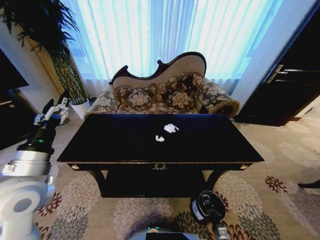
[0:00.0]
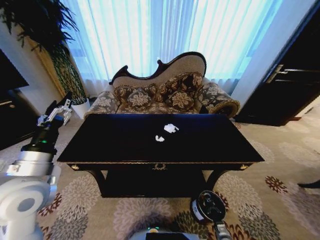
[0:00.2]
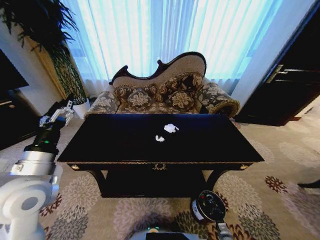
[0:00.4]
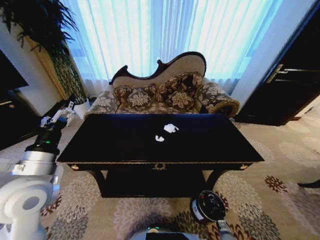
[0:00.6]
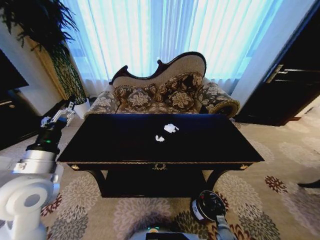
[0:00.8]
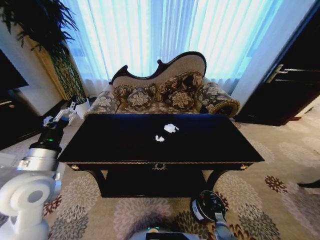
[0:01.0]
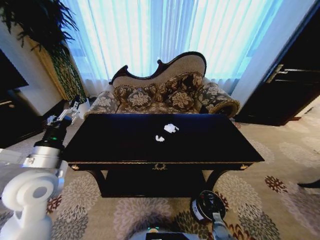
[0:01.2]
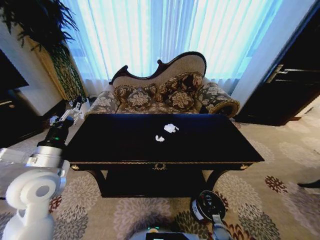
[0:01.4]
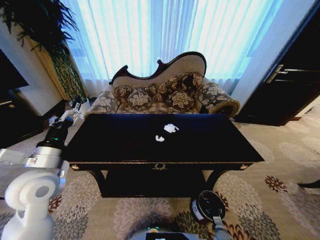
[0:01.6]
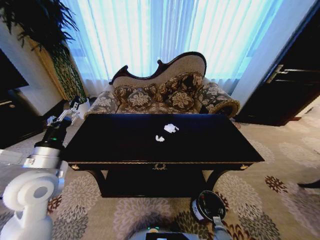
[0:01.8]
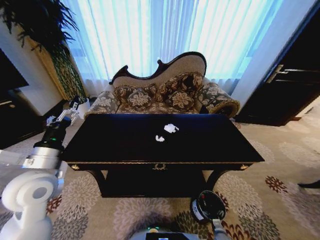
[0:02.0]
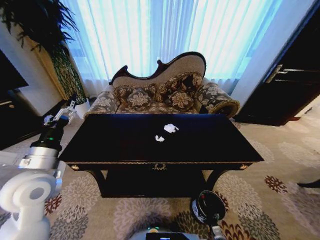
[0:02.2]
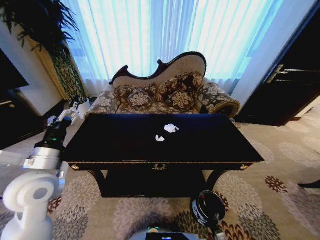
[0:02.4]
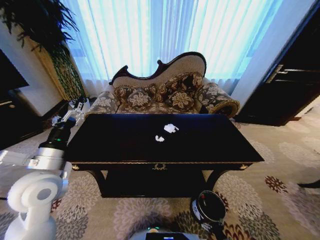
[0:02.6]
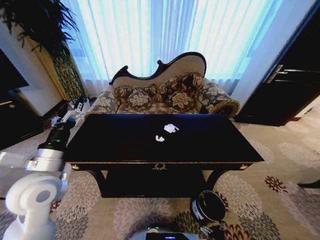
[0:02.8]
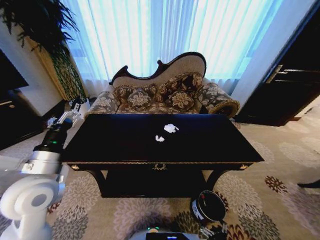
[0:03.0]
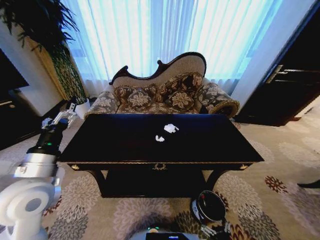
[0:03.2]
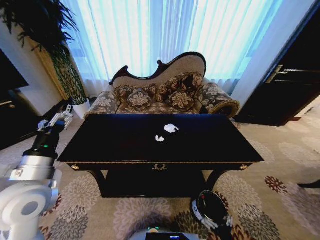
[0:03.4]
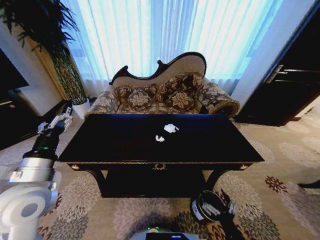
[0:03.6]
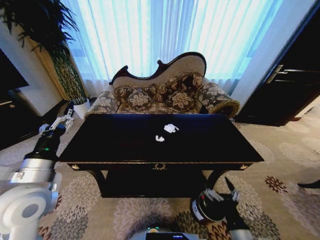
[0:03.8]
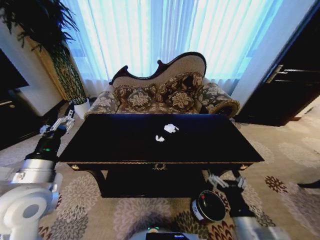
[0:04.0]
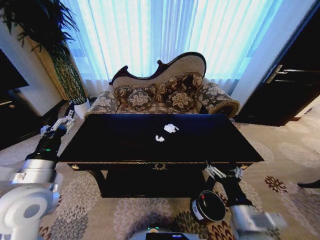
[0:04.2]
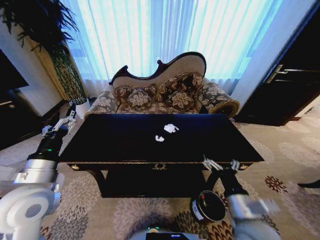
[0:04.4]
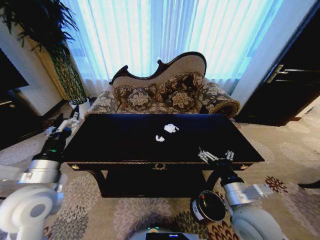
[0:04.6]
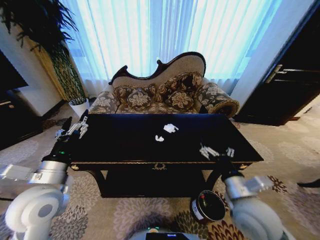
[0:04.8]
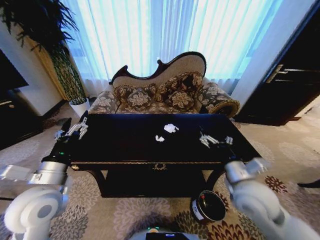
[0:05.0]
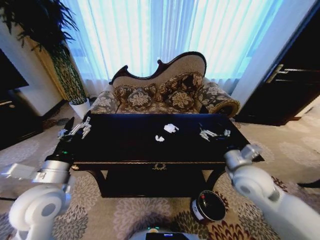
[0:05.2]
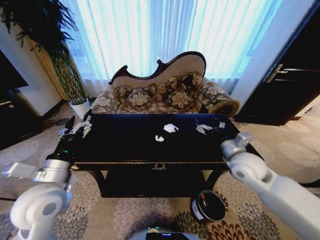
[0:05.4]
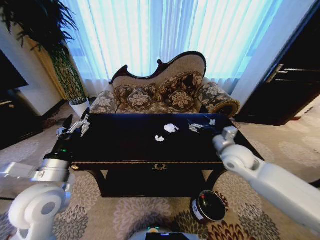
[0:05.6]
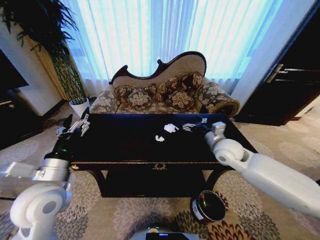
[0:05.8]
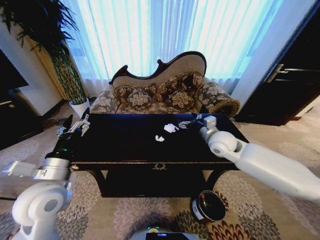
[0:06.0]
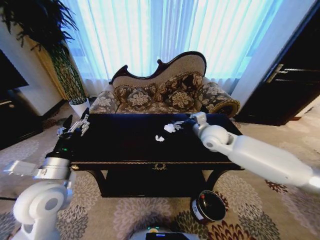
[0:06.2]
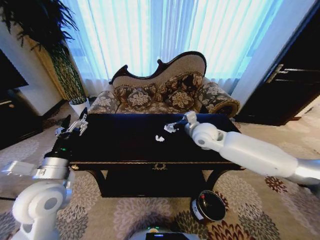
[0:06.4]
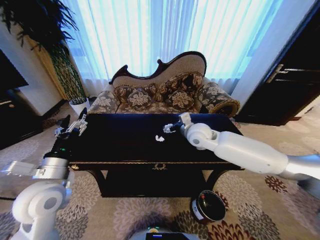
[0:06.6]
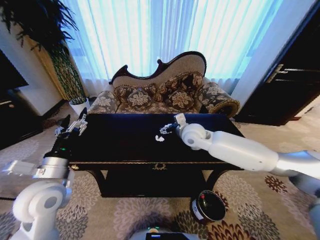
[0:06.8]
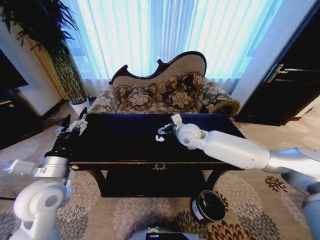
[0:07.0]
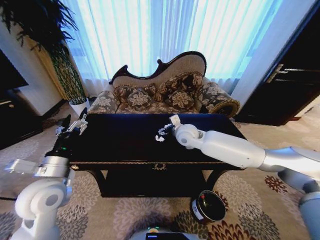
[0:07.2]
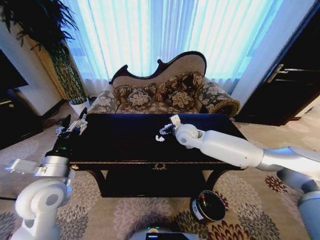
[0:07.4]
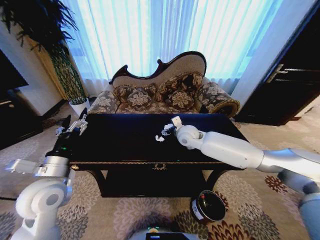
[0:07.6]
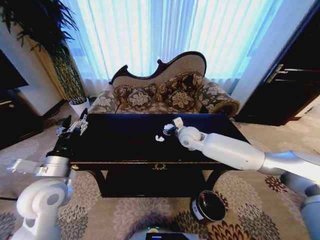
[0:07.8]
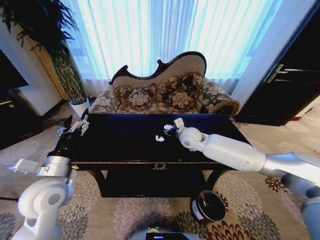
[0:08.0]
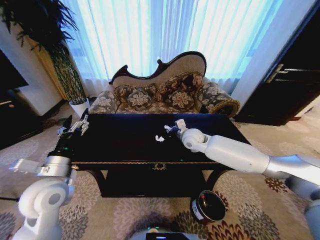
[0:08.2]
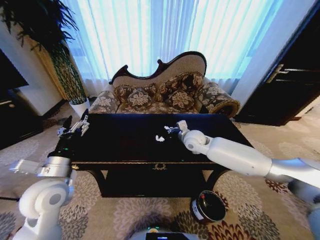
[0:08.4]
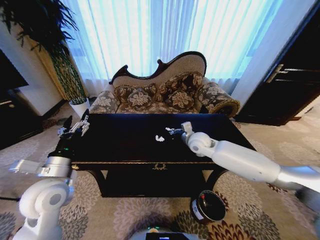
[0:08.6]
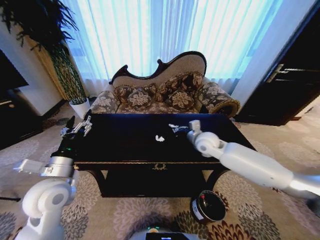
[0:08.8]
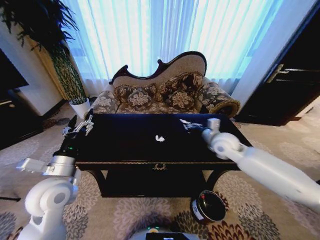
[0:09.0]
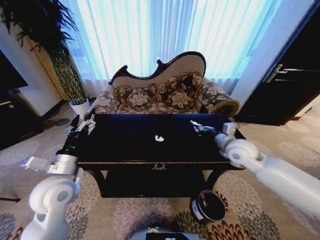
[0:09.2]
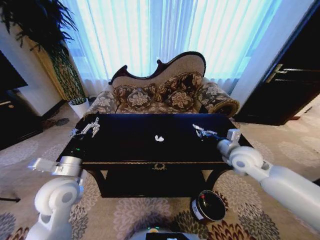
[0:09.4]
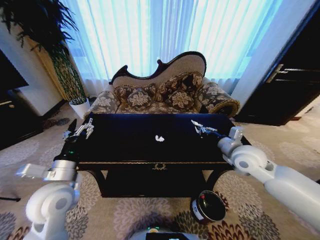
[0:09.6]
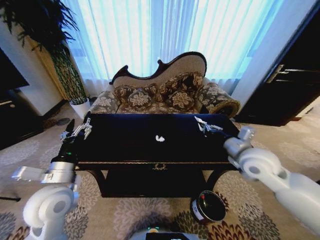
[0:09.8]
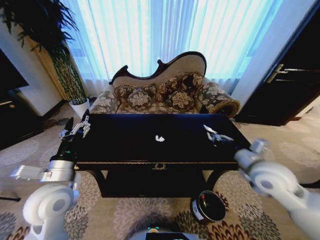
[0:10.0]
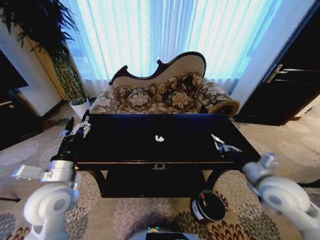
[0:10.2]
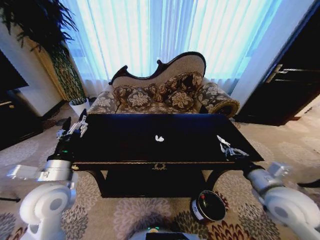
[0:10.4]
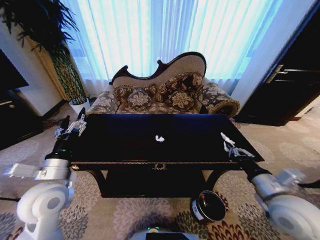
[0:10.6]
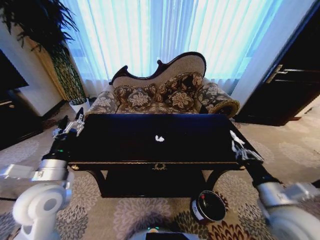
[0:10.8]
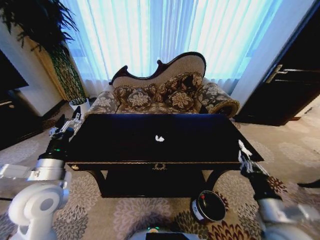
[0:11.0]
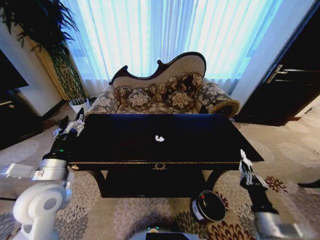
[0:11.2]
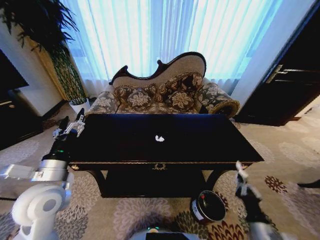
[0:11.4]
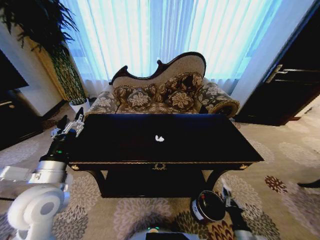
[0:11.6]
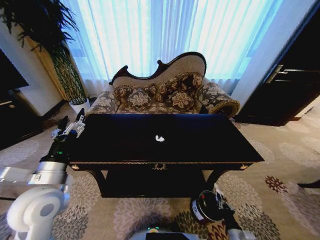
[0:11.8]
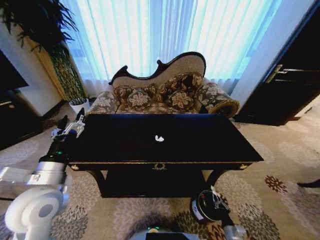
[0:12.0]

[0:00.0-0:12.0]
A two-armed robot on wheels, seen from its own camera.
Task of the whole recording: Move to the front of the table and place the trash on the table into the trash bin.
0:01.6 to 0:03.0: The right gripper shifts some 25 cm upward and backward, and opens.
0:03.0 to 0:04.4: The right gripper moves upward and forward, about 35 cm.
0:04.4 to 0:06.0: The right gripper is displaced forward by roughly 25 cm.
0:06.0 to 0:07.6: The right gripper heads to the left and forward, covering about 15 cm.
0:07.6 to 0:09.0: The right gripper heads to the right, covering about 15 cm, and closes up.
0:09.0 to 0:10.4: The right gripper goes roughly 20 cm backward.
0:10.4 to 0:12.0: The right gripper travels downward by roughly 35 cm.

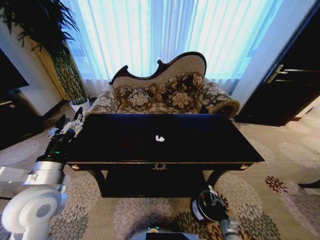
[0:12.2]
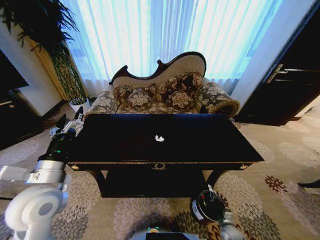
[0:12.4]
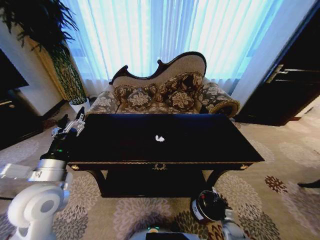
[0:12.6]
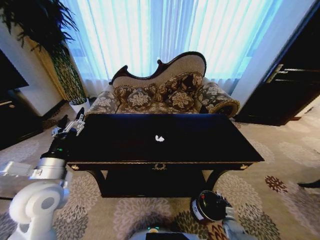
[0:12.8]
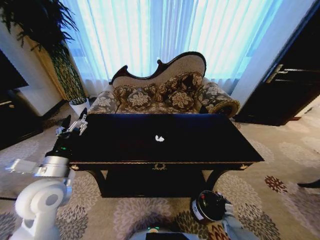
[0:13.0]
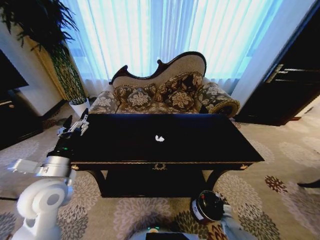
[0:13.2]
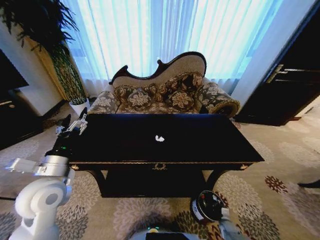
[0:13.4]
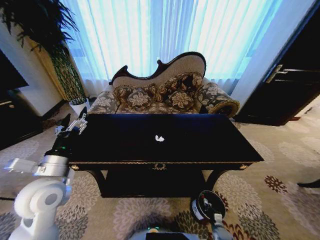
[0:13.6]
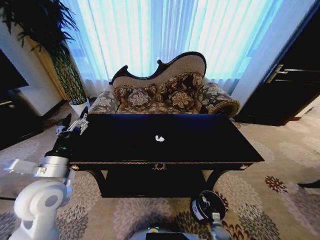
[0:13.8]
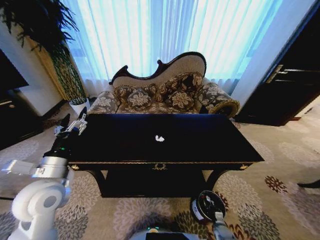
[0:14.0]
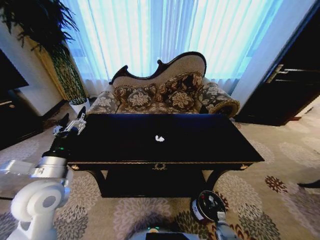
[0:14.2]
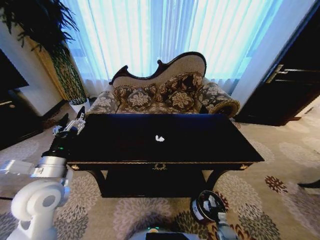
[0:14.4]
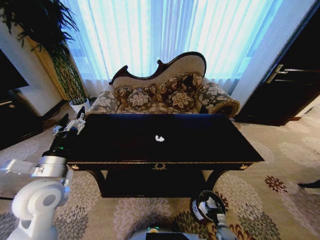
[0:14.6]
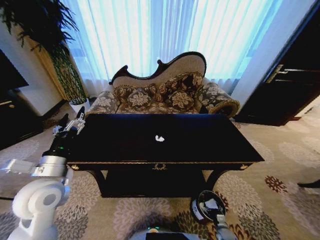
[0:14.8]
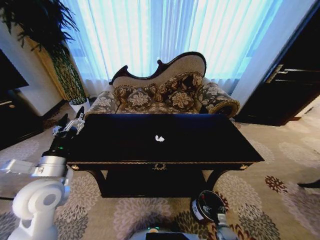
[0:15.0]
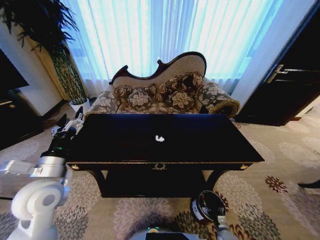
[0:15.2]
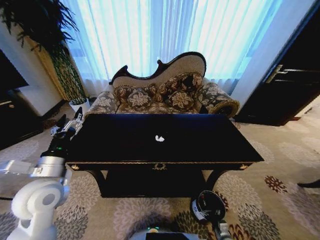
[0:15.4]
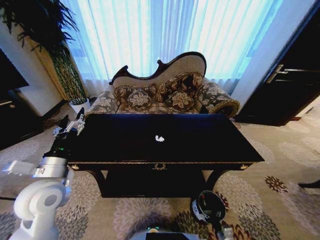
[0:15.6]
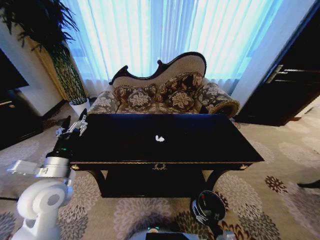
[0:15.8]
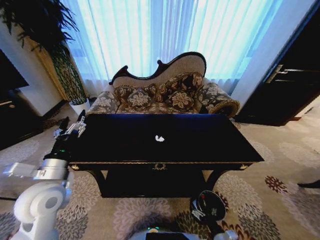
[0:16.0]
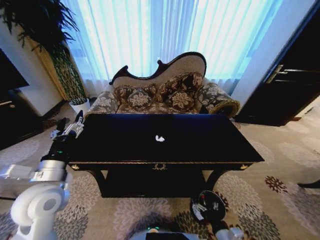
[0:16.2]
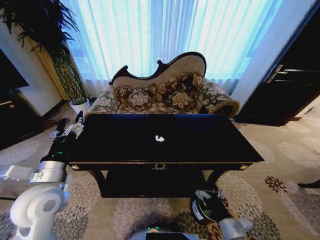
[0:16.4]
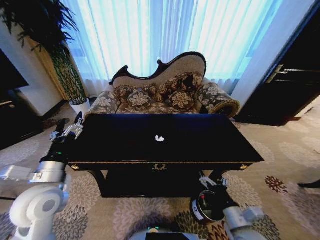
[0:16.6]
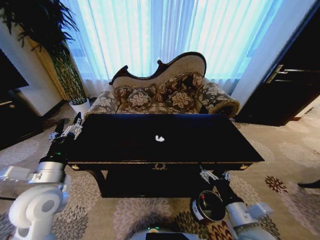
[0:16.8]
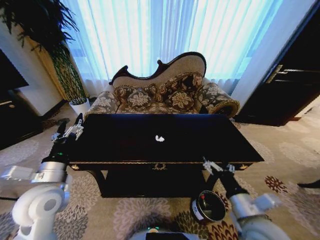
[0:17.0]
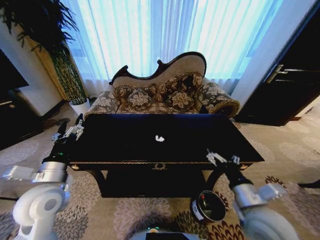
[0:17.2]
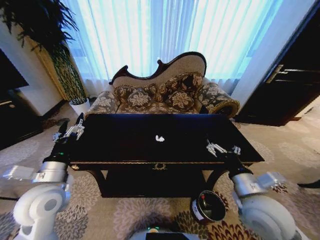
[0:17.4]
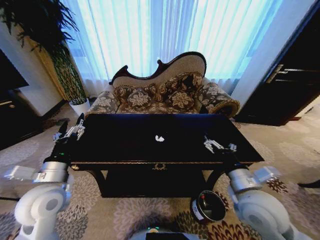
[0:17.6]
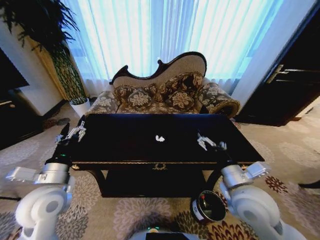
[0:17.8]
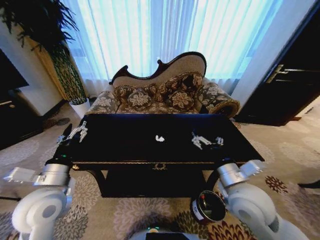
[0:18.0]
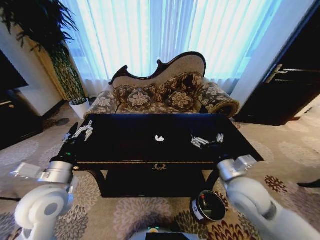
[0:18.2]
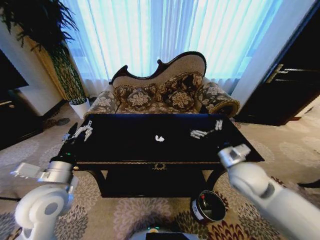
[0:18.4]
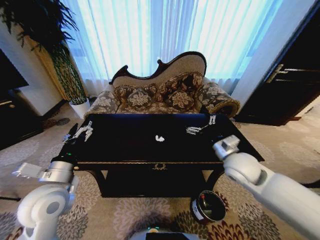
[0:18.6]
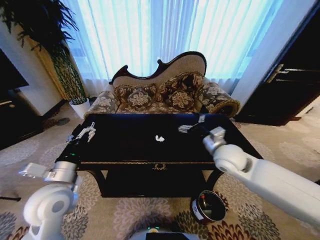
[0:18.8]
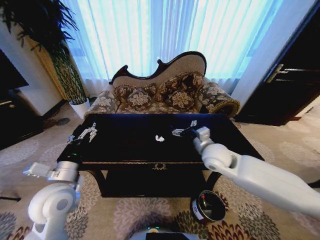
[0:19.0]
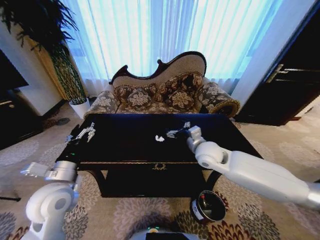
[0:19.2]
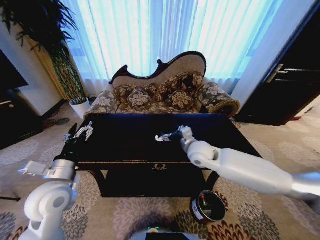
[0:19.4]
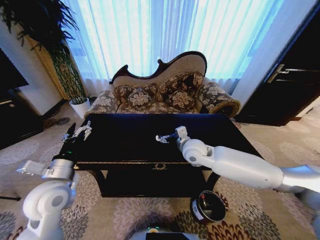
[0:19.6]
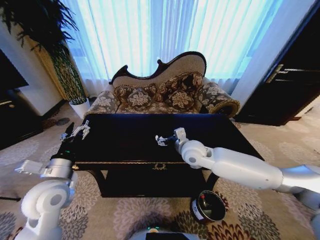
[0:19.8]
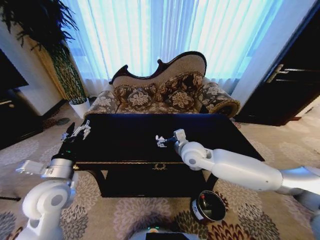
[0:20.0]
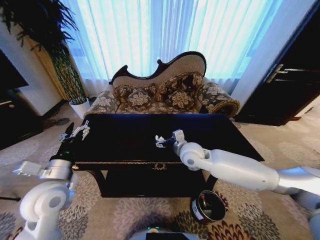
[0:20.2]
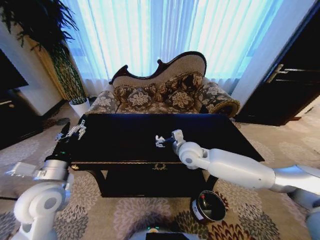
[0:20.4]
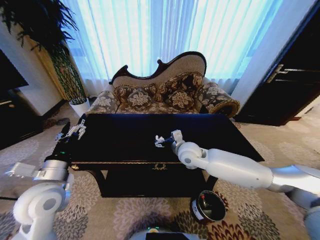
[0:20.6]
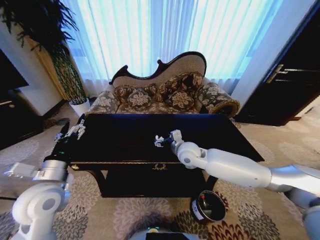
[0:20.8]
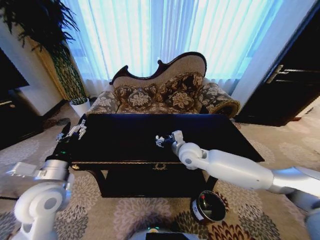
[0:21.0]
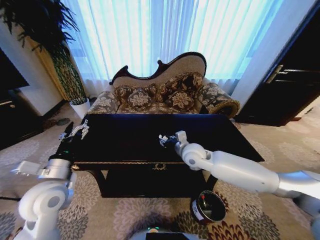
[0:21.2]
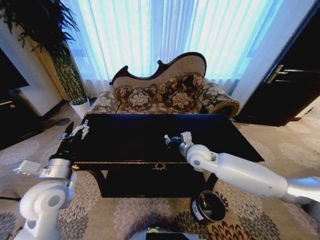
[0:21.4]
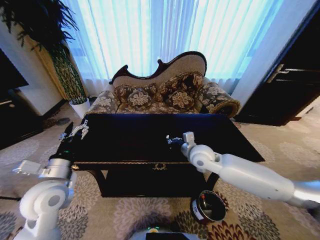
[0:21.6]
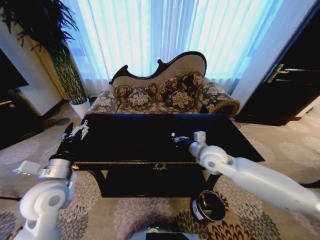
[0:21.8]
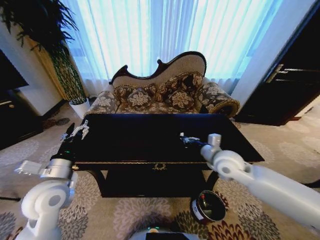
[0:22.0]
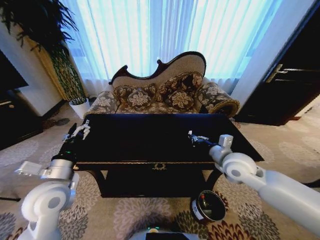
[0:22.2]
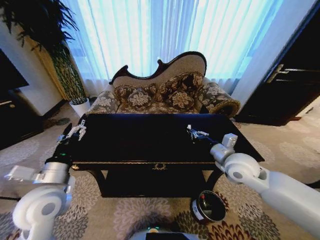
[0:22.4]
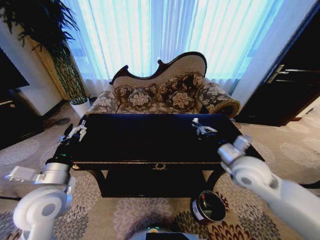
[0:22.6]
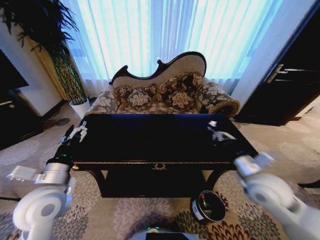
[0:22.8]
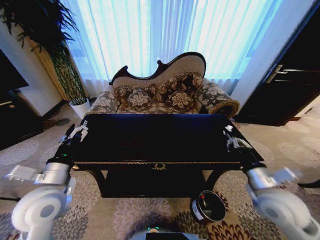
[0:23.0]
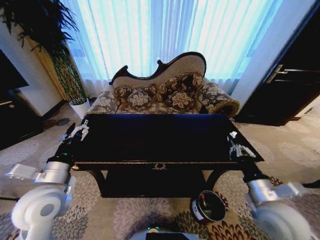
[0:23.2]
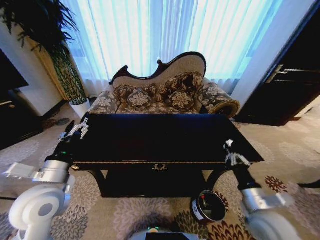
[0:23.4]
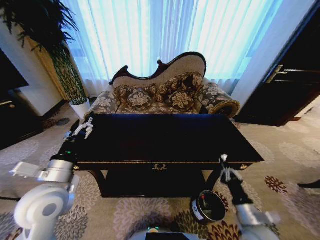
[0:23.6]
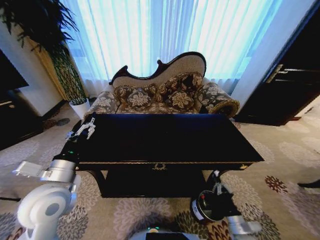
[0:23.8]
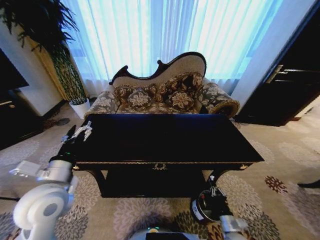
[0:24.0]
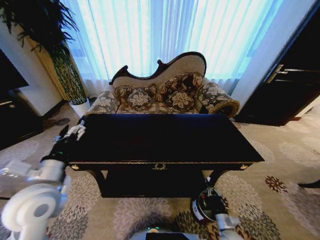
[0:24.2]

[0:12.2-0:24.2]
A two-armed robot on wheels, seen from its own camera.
Task of the whole recording: Move to the front of the table and place the trash on the table into the trash bin.
0:12.2 to 0:13.8: The right gripper is displaced downward by roughly 10 cm.
0:15.2 to 0:16.6: The right gripper goes approximately 35 cm upward.
0:16.6 to 0:18.2: The right gripper is displaced upward and forward by approximately 15 cm.
0:18.2 to 0:19.8: The right gripper travels forward and to the left by about 20 cm.
0:19.8 to 0:21.2: The right gripper closes.
0:21.2 to 0:22.6: The right gripper shifts approximately 20 cm to the right and backward, and closes up.
0:22.6 to 0:24.2: The right gripper goes approximately 40 cm downward and backward.
